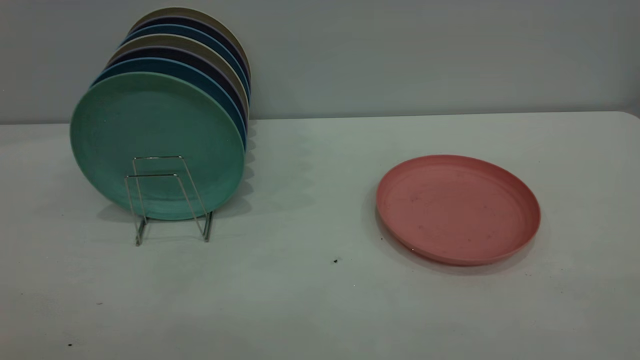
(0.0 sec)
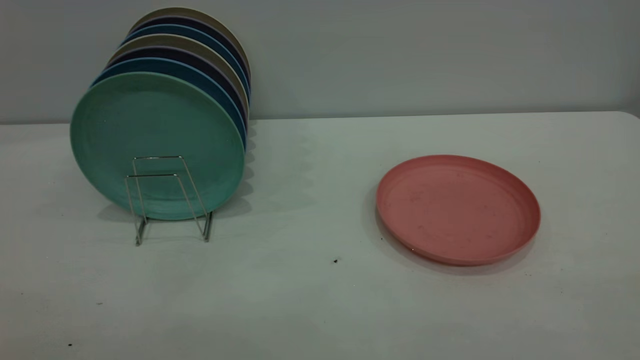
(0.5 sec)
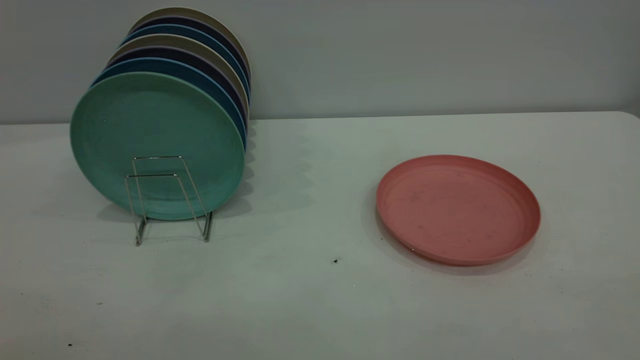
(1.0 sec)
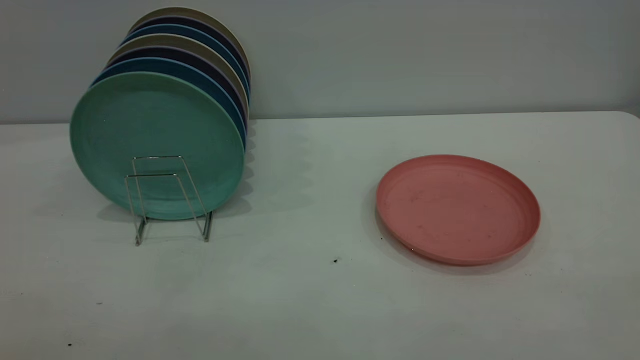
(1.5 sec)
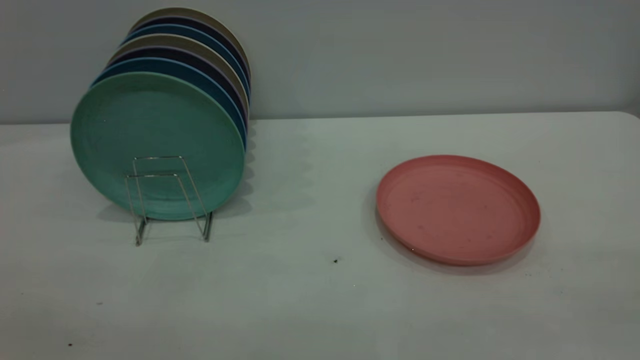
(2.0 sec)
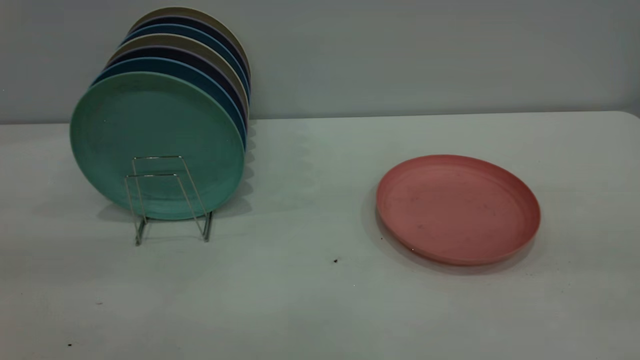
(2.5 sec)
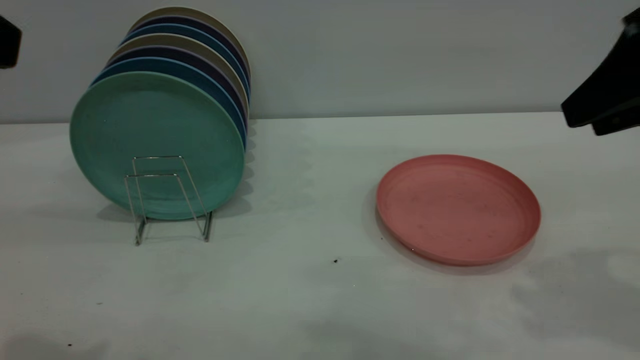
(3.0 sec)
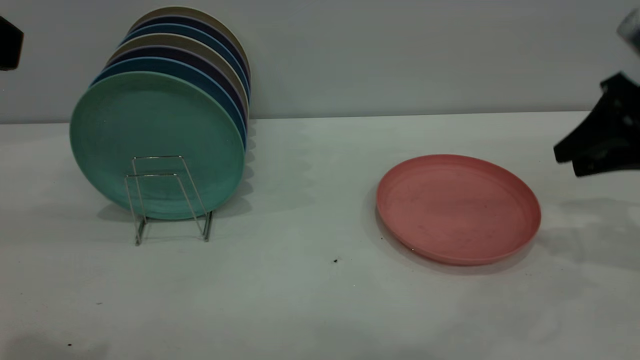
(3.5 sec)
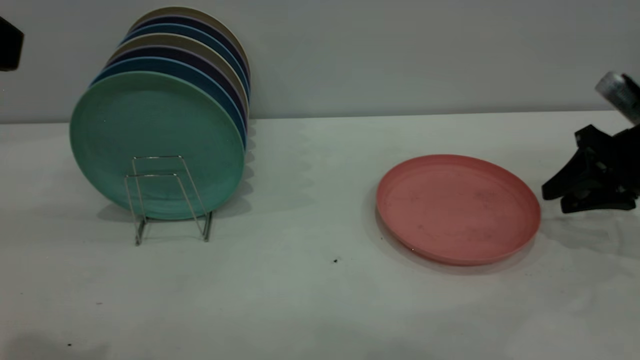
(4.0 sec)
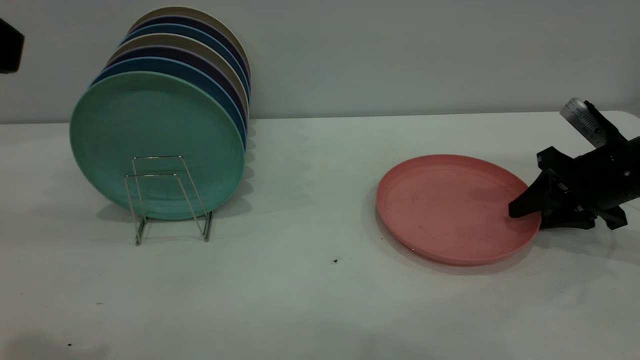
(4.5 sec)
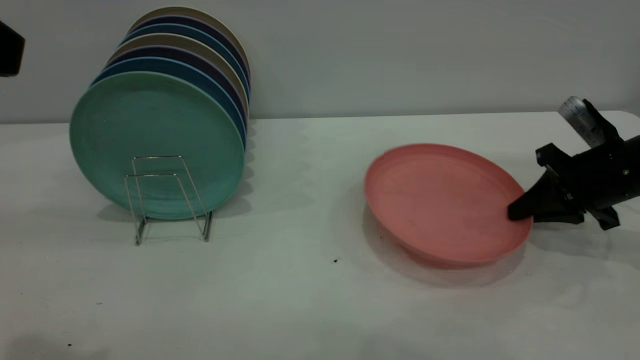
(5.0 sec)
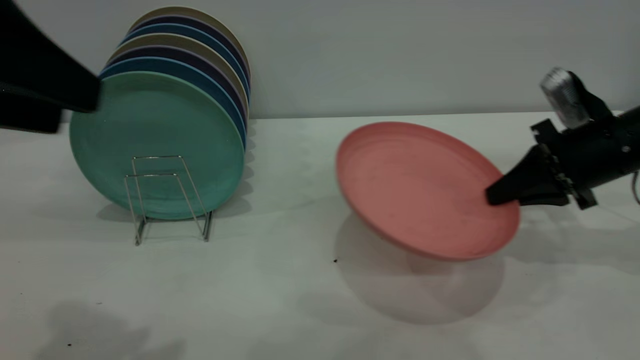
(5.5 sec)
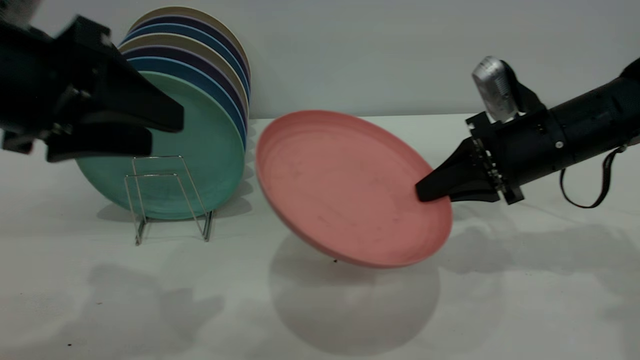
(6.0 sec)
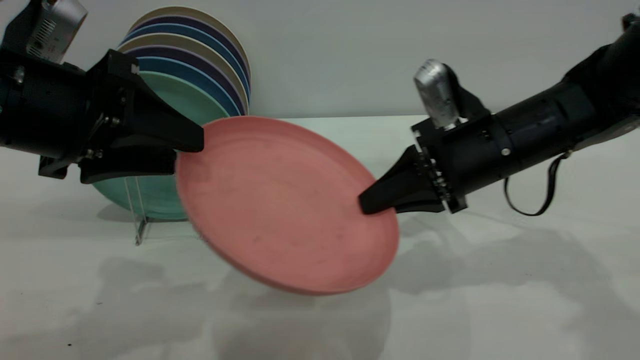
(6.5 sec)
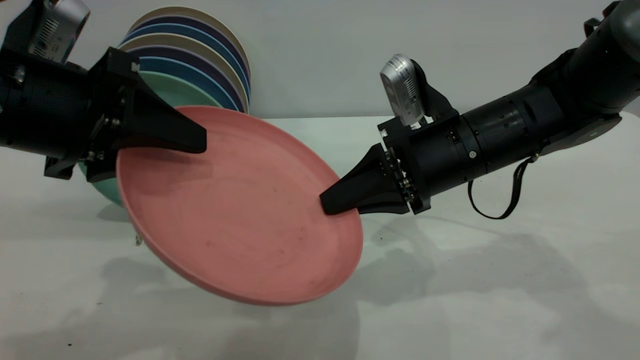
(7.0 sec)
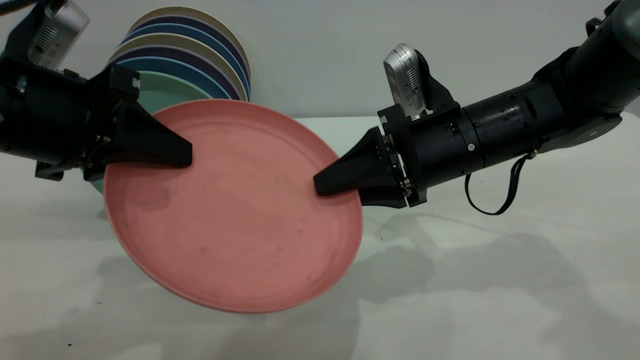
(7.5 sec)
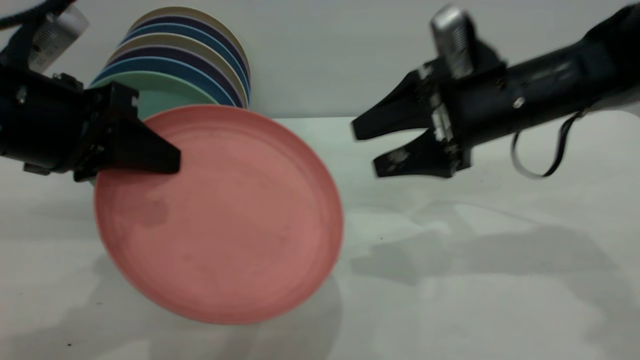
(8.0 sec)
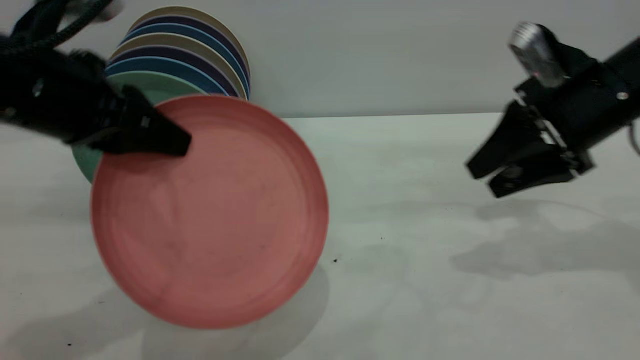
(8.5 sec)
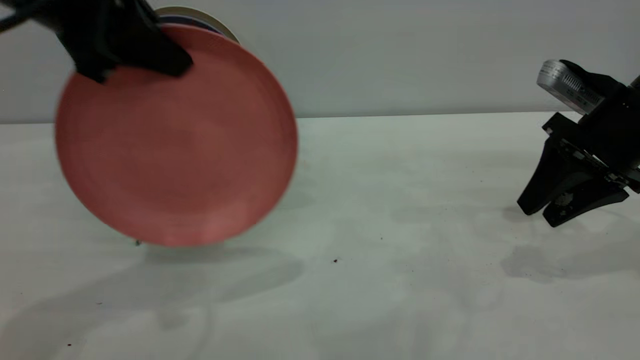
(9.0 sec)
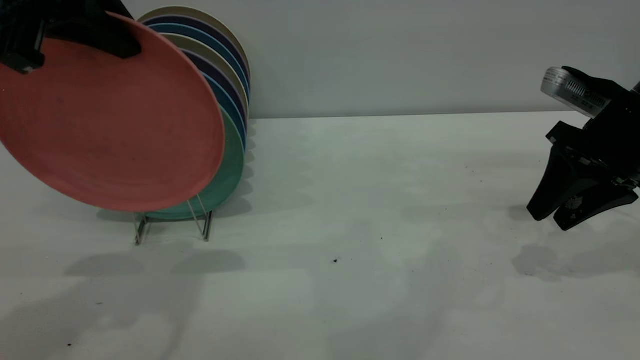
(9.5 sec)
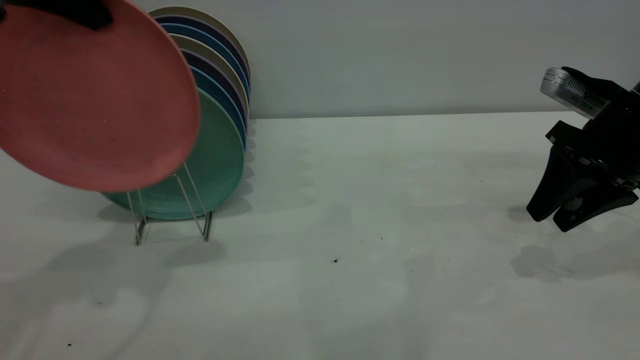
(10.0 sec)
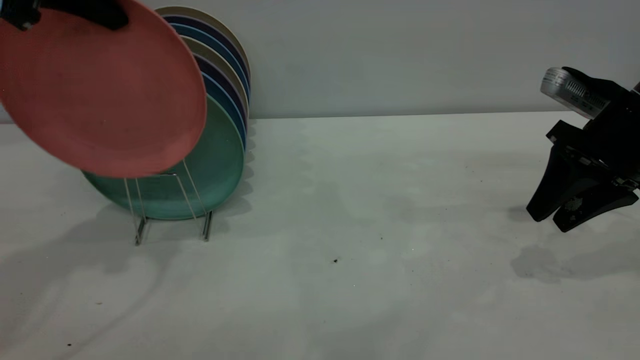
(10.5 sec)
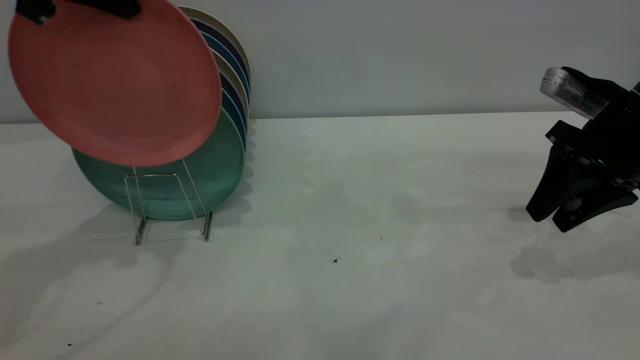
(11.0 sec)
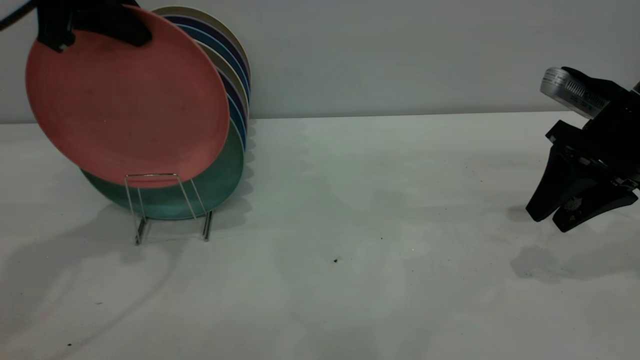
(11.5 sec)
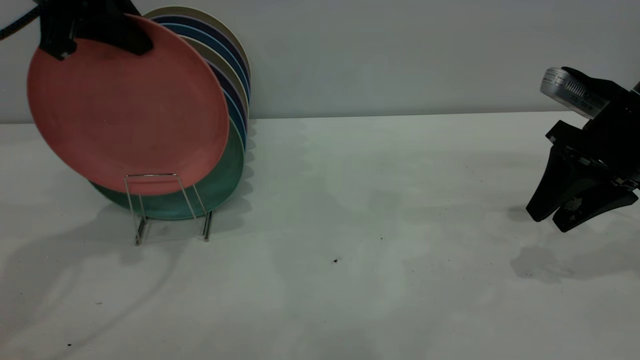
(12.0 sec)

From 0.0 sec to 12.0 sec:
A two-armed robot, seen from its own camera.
Task of the whole recording: the right gripper grasp the pink plate, the right gripper pass the pink plate to the left gripper, and the left gripper place the pink plate on the plate rack.
Step, from 0.0 sec to 5.0 sec: Pick up the plate with the right gripper.
Step, from 6.0 sec to 10.0 sec: Pass the plate from the right gripper to the left gripper.
From 2.0 sec to 4.0 sec: The right gripper travels forward and downward by some 50 cm.
From 4.0 sec to 6.0 sec: The left gripper moves downward and forward, some 15 cm. Meanwhile the right gripper goes about 15 cm to the left, and closes up.
From 6.0 sec to 8.0 sec: The right gripper heads upward, covering roughly 5 cm, and opens; the left gripper closes up.
From 8.0 sec to 10.0 sec: The left gripper shifts approximately 15 cm upward and forward; the right gripper moves to the right, about 10 cm, and closes.
From 10.0 sec to 12.0 sec: The left gripper goes roughly 10 cm forward and downward.

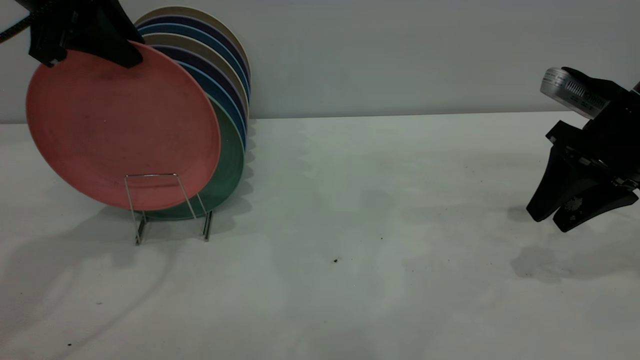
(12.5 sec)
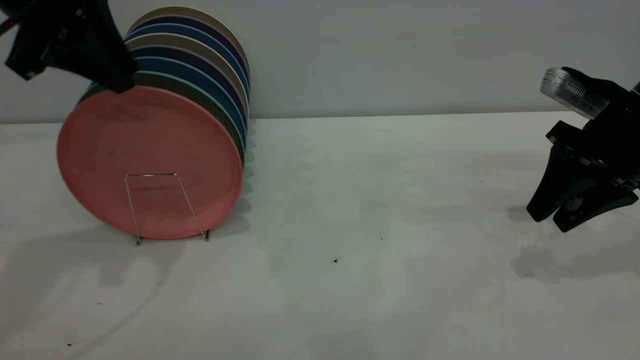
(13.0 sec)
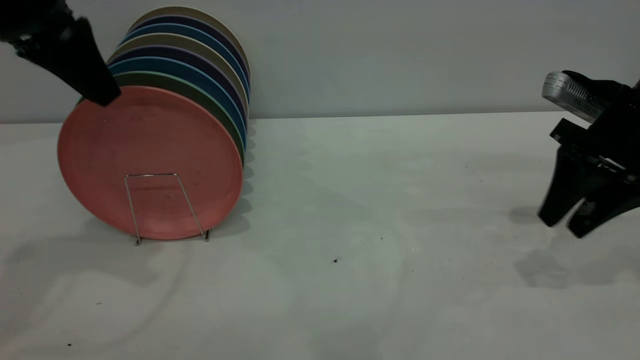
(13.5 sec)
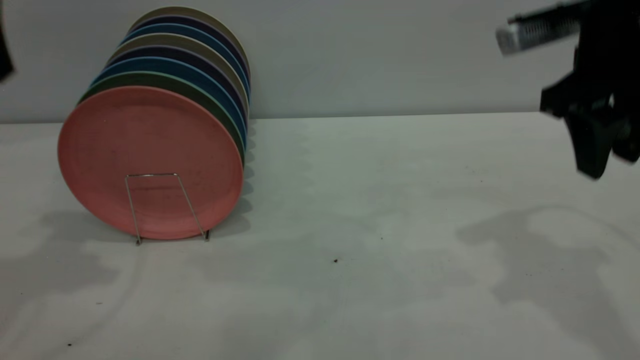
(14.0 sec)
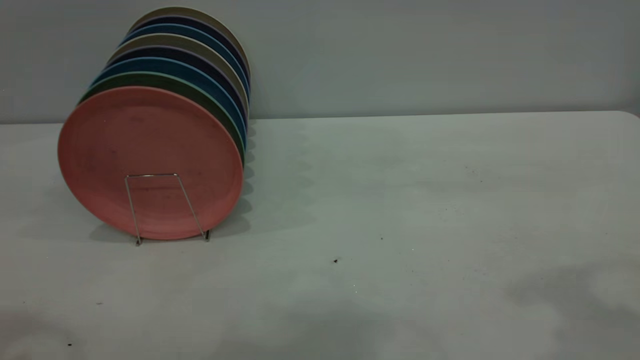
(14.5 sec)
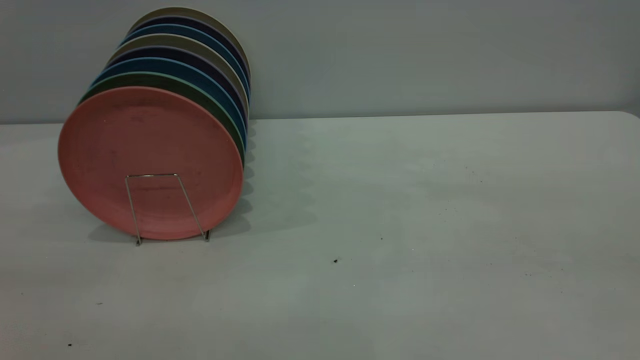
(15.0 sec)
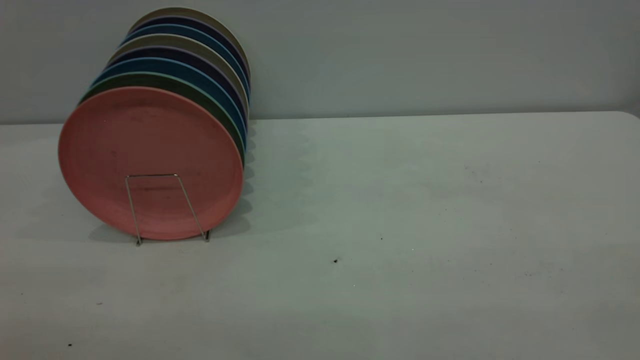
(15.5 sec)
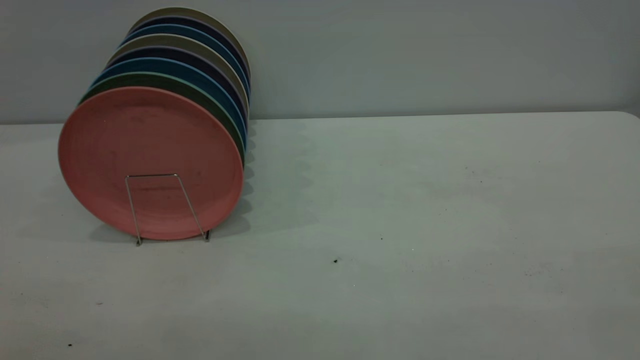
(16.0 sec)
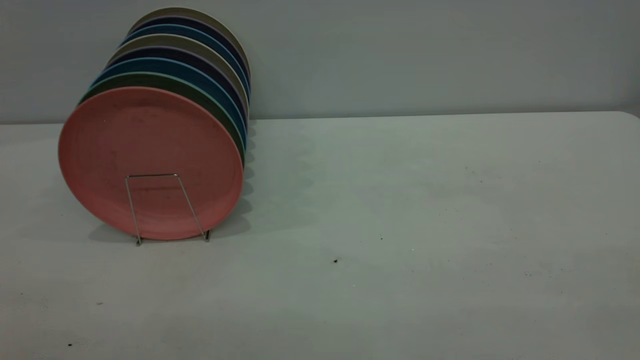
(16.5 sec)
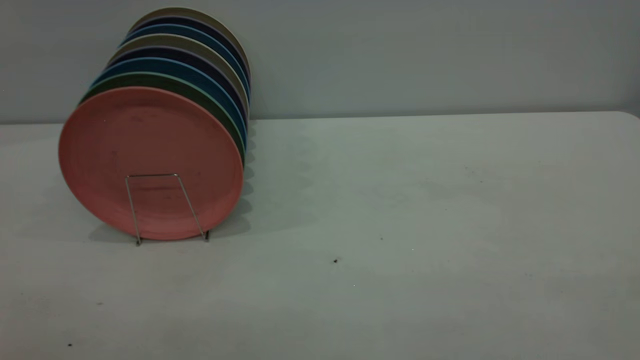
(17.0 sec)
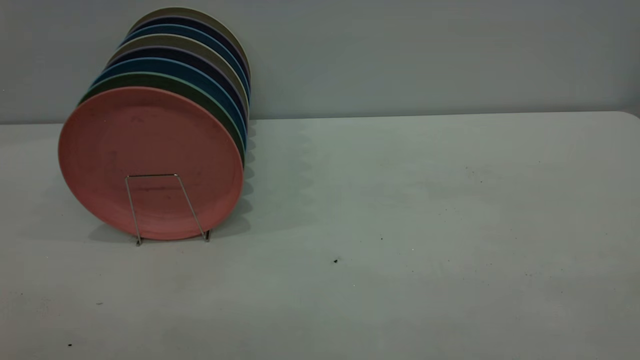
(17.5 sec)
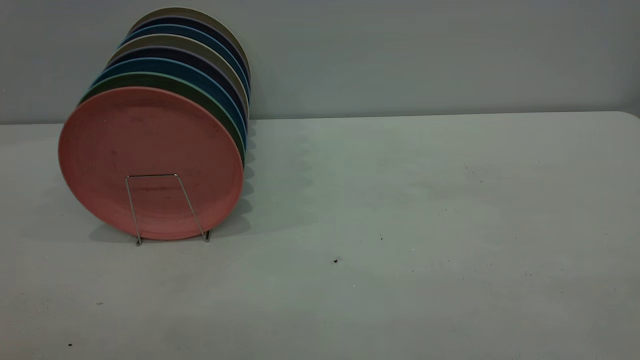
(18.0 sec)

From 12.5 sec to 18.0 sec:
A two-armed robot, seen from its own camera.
Task of the whole recording: the right gripper grasp the pink plate, the right gripper pass the pink plate to the left gripper, and the left gripper place the pink plate on the plate rack.
From 12.5 sec to 14.5 sec: The left gripper shifts approximately 25 cm backward and upward, and opens its fingers. Meanwhile the right gripper is displaced upward and backward by roughly 30 cm.
